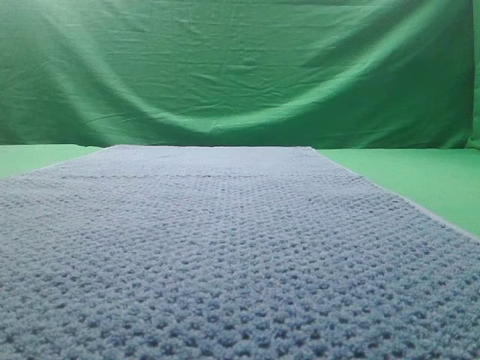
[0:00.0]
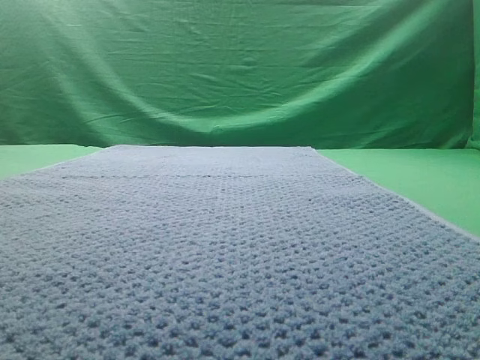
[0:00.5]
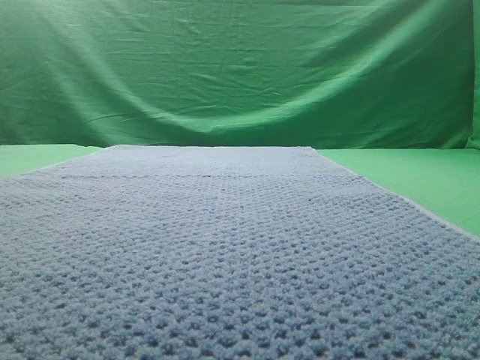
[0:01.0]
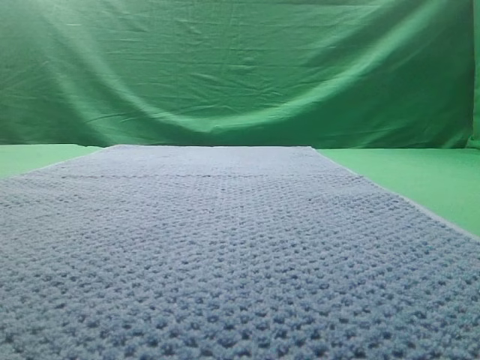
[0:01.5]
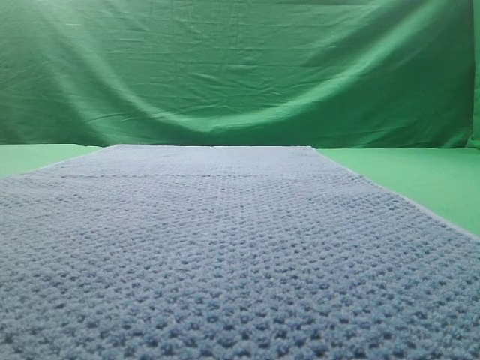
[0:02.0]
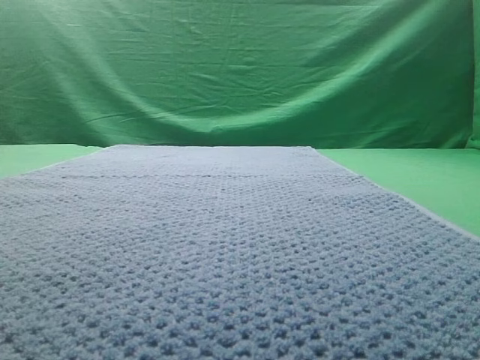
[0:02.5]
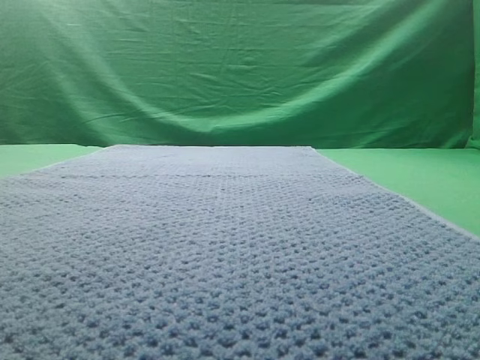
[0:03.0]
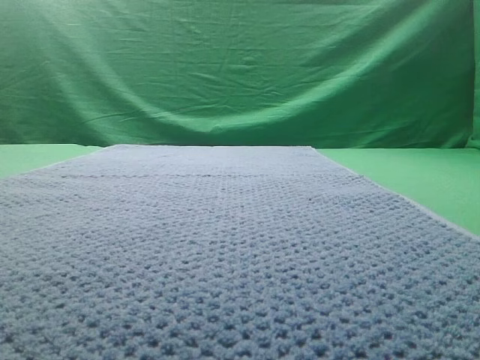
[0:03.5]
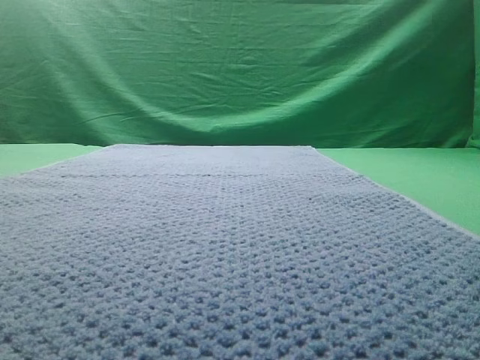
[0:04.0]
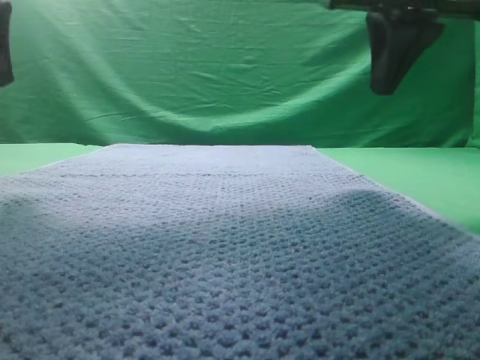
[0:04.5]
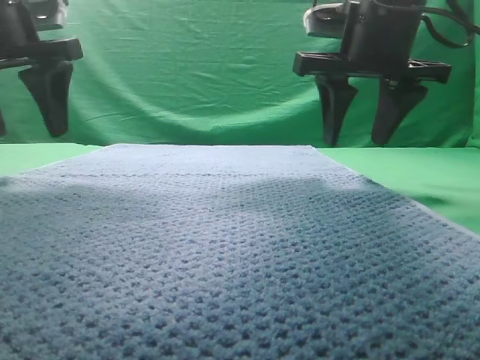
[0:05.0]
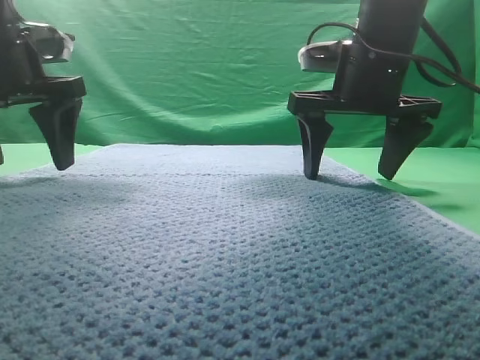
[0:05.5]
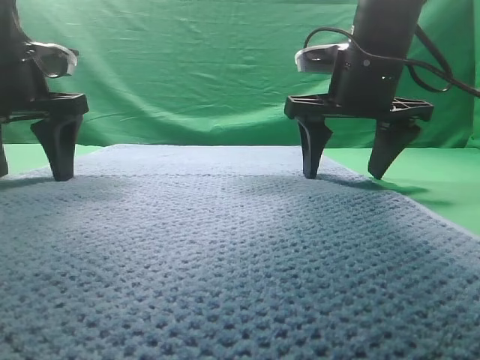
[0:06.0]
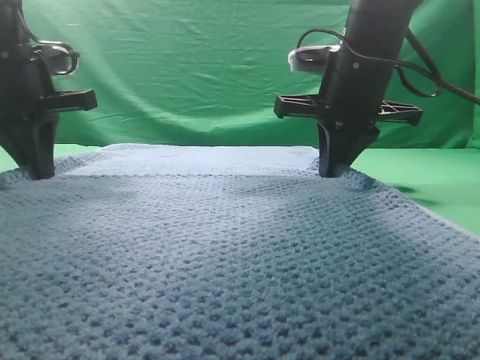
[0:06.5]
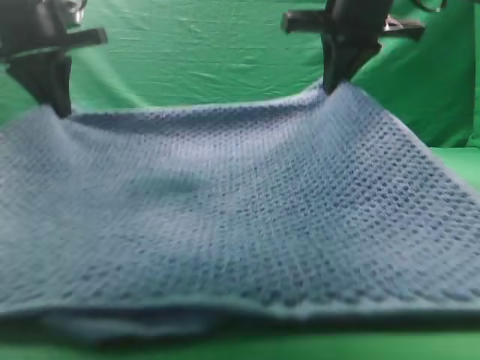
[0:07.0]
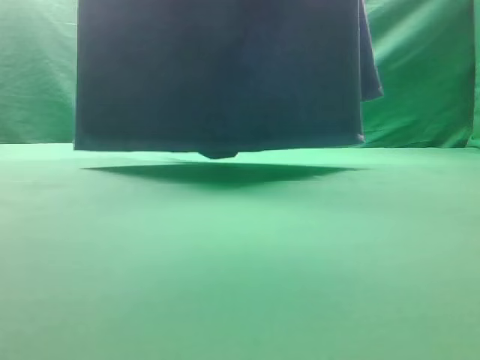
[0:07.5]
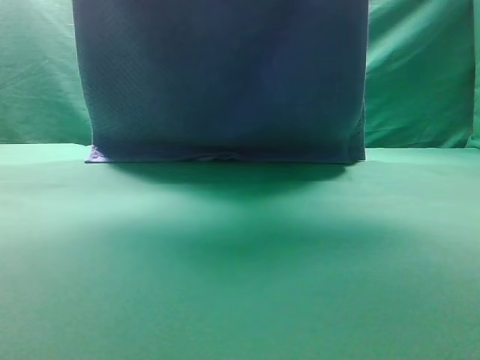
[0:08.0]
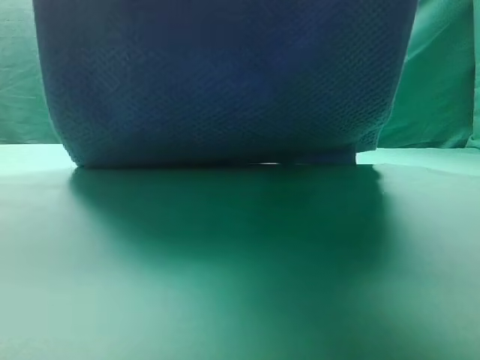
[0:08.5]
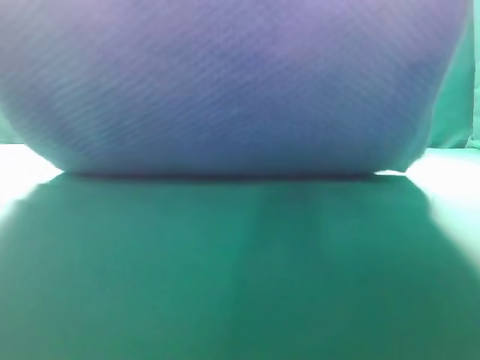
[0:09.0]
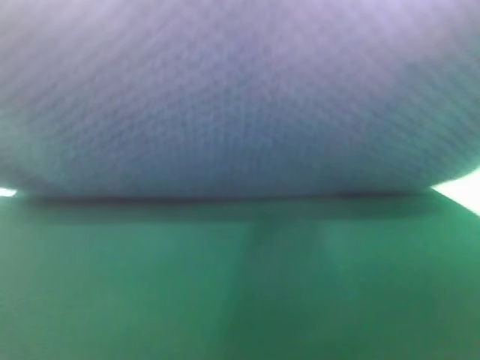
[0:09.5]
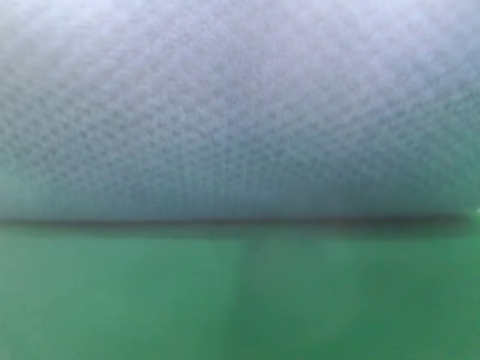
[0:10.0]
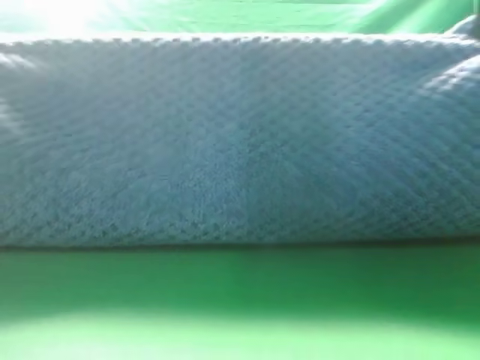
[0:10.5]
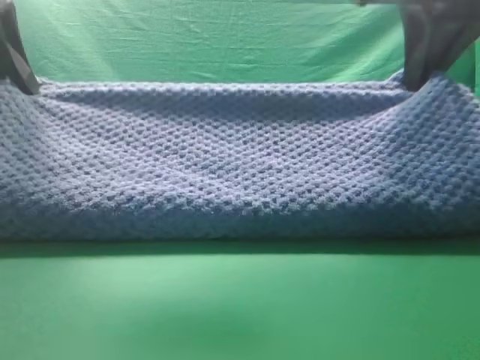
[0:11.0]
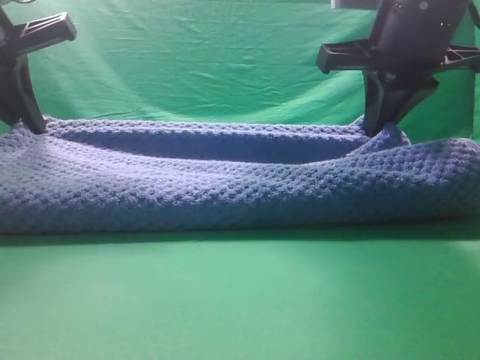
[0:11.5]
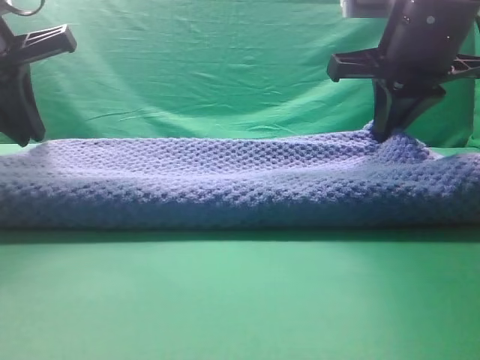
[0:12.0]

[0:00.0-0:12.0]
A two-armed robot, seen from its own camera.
Task of the whole recording: fold the towel on the table twice.
Step, 0:00.0 to 0:07.5: pick up the towel with two arm.

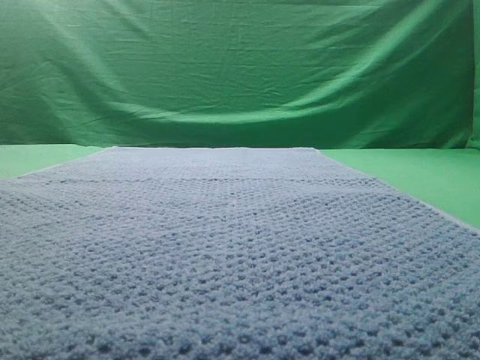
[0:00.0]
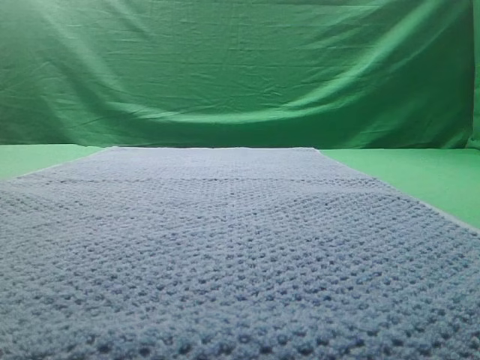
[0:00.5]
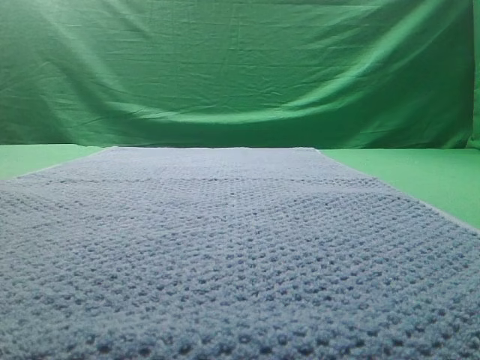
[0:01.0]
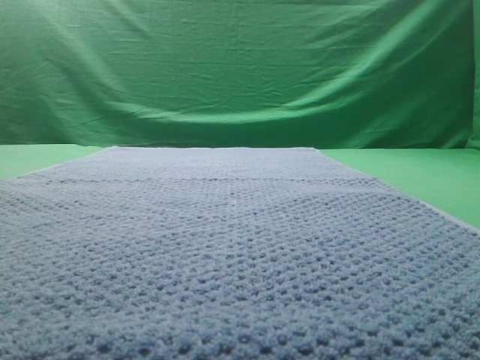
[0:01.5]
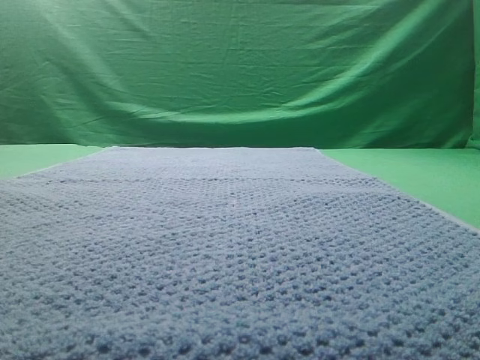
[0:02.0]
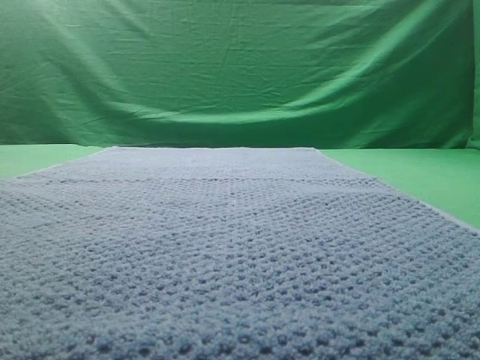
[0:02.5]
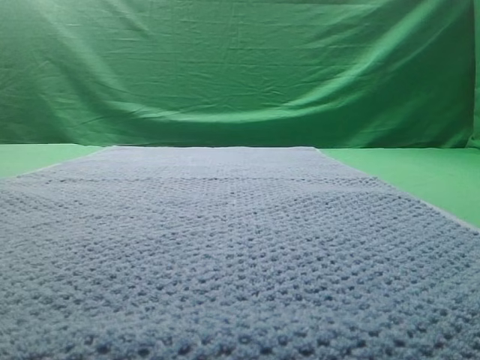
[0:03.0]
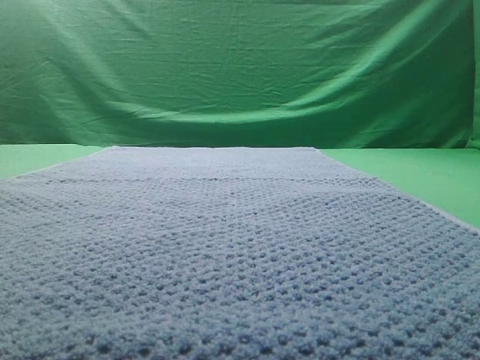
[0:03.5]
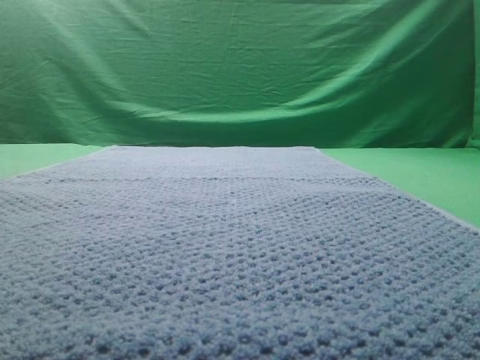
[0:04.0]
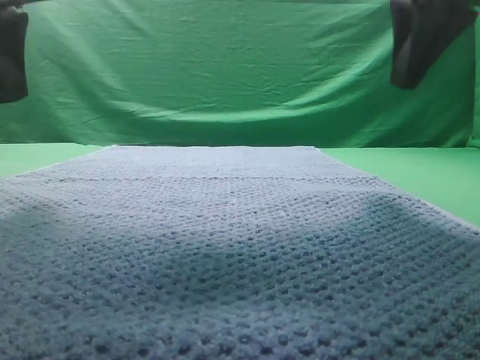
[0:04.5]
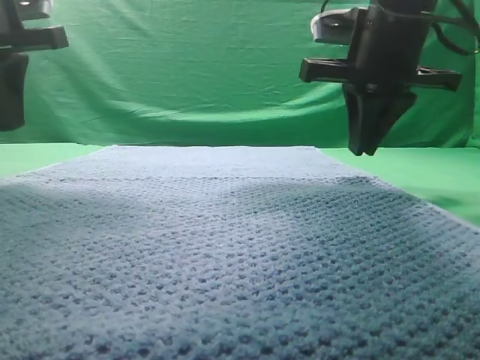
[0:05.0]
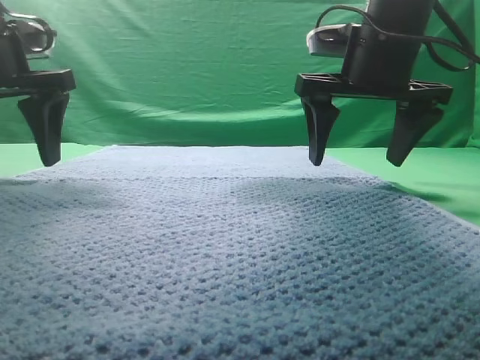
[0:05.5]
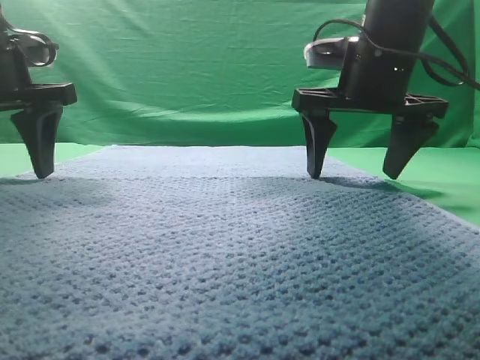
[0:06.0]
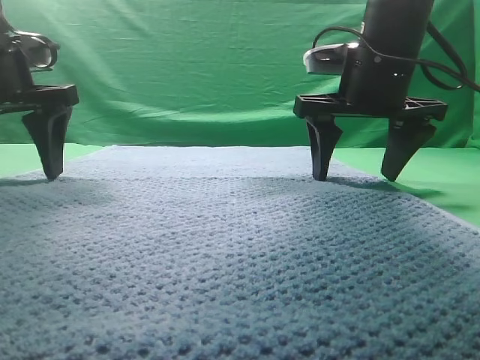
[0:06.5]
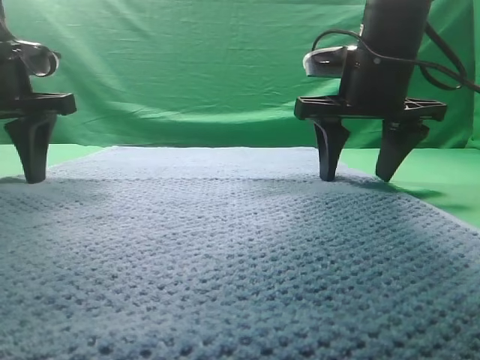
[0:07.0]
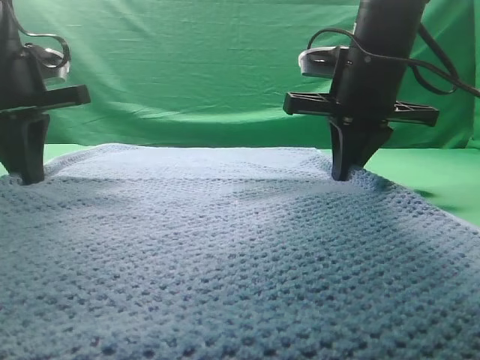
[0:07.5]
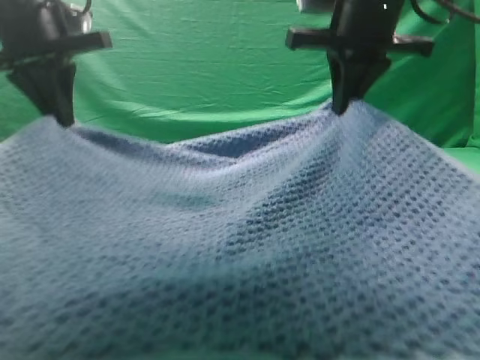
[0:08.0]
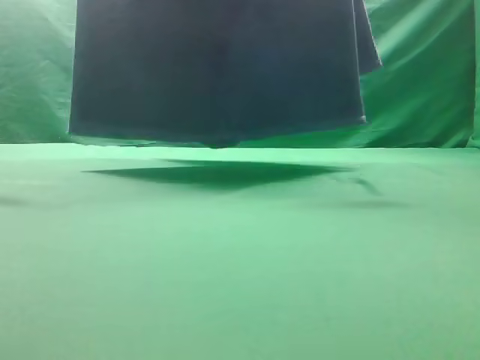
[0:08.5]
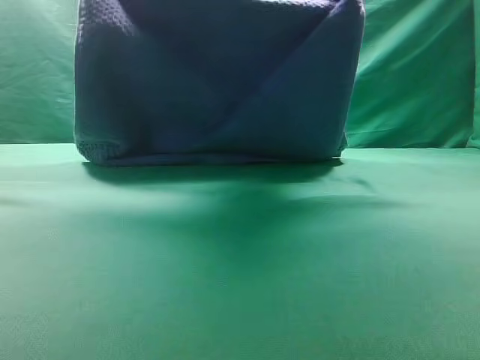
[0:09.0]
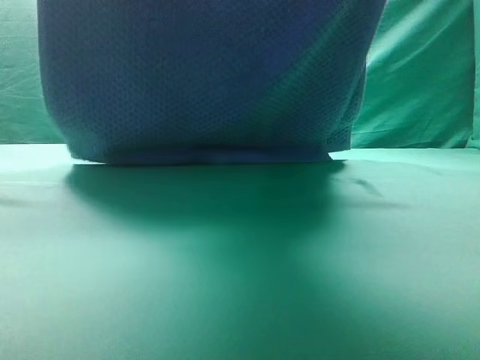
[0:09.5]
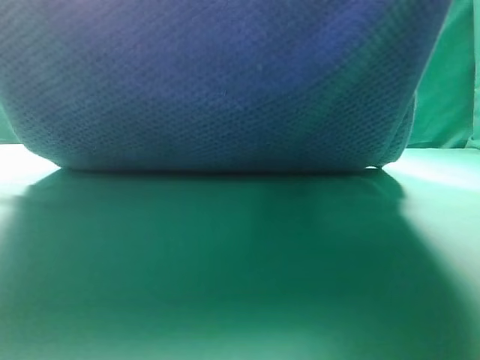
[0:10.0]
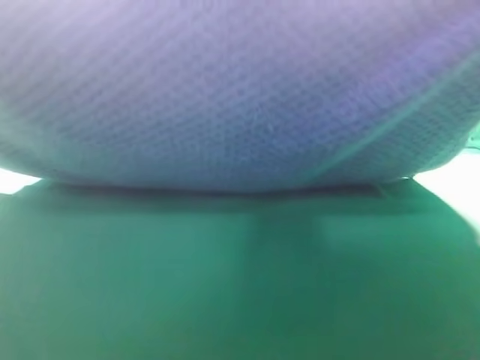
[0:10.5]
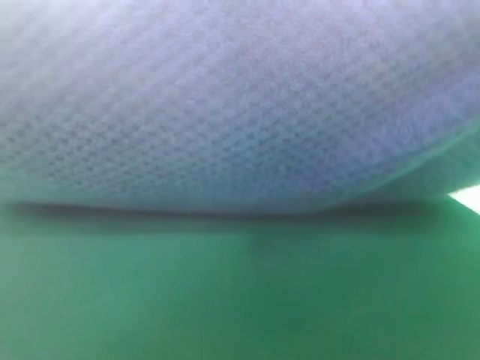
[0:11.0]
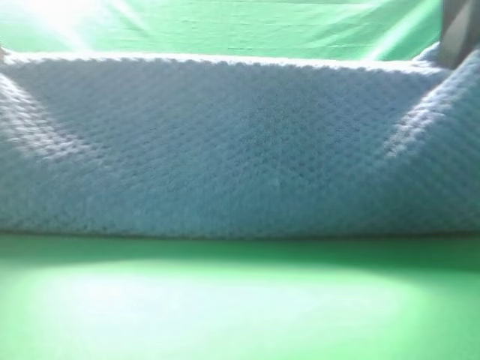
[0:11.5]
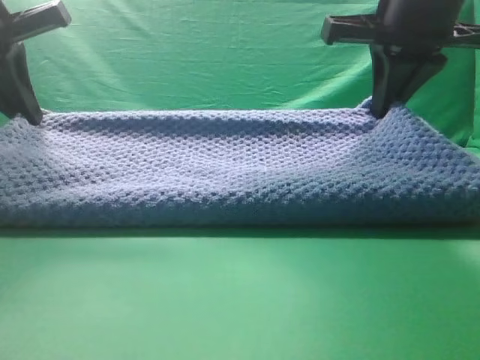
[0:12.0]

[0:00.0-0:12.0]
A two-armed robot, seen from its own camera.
Task of the whole recording: fold the towel on the table twice.
Step, 0:00.0 to 0:08.0: pick up the towel with two arm.
